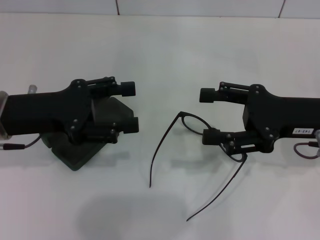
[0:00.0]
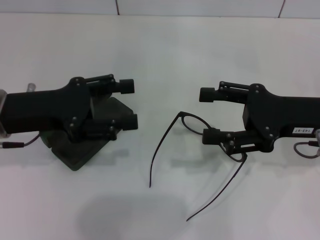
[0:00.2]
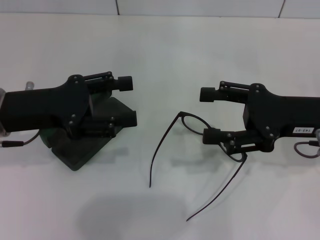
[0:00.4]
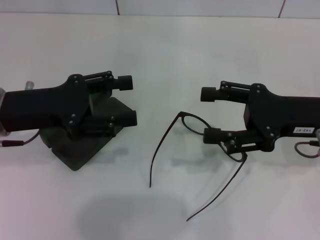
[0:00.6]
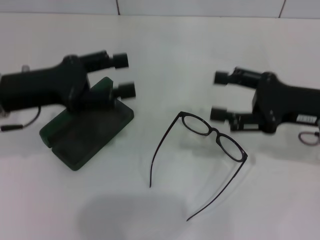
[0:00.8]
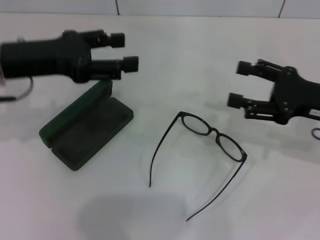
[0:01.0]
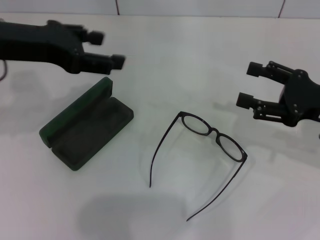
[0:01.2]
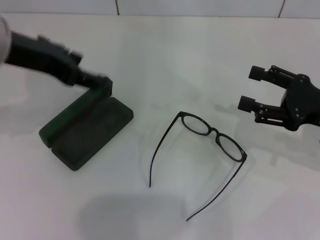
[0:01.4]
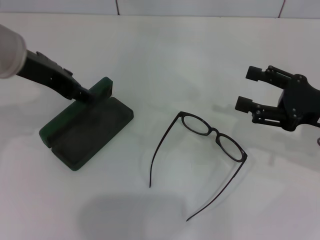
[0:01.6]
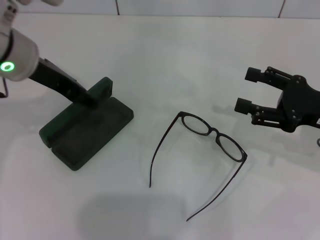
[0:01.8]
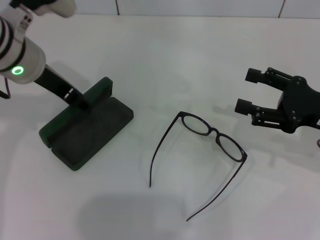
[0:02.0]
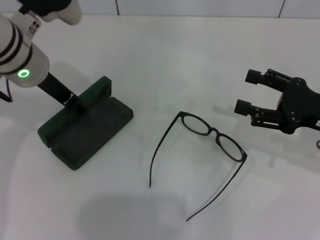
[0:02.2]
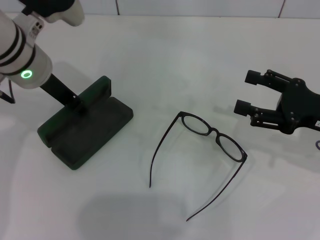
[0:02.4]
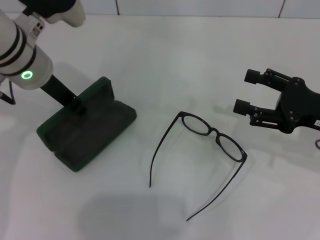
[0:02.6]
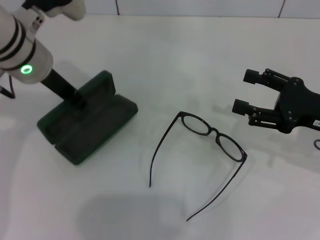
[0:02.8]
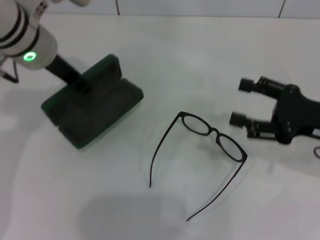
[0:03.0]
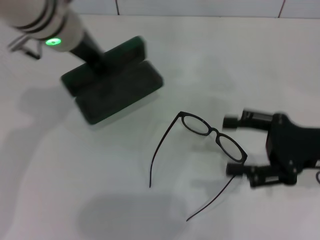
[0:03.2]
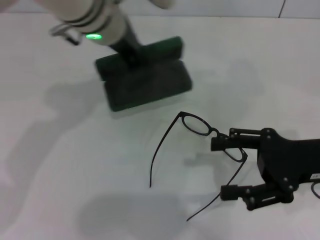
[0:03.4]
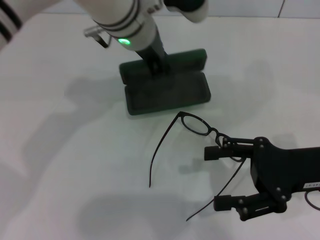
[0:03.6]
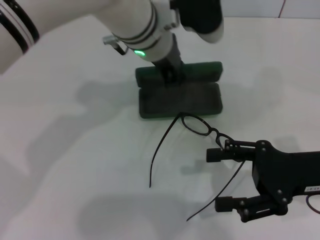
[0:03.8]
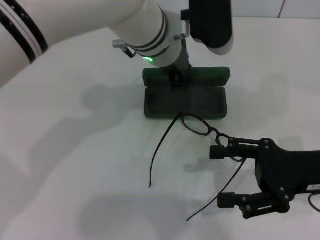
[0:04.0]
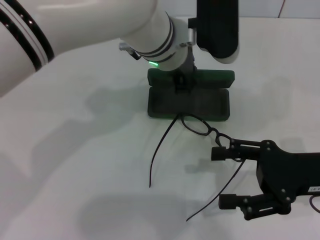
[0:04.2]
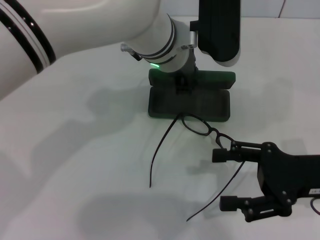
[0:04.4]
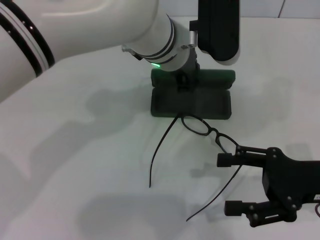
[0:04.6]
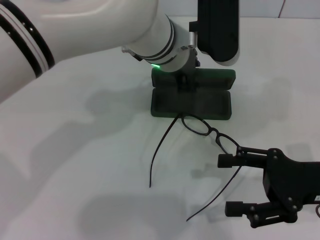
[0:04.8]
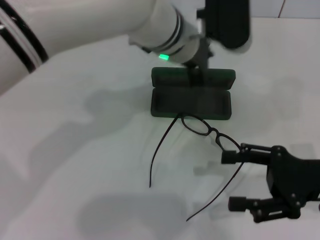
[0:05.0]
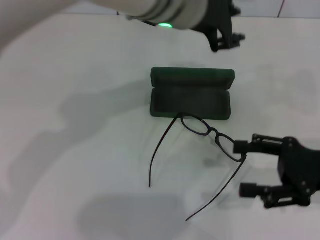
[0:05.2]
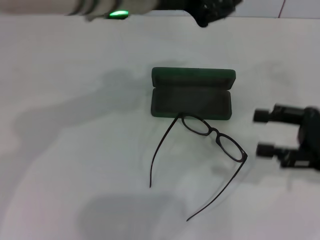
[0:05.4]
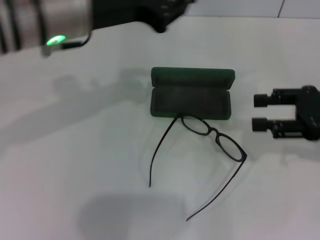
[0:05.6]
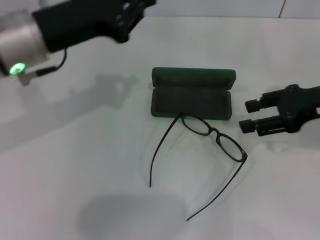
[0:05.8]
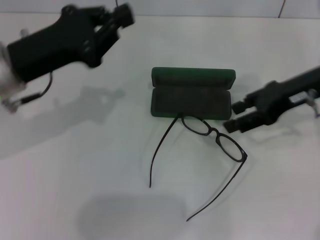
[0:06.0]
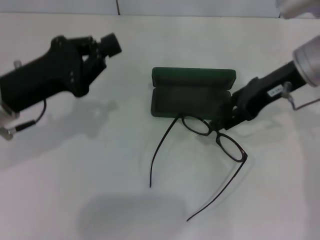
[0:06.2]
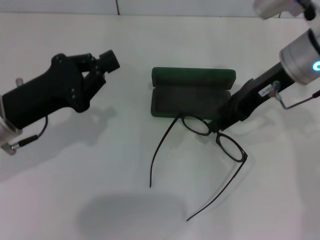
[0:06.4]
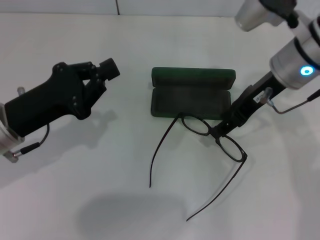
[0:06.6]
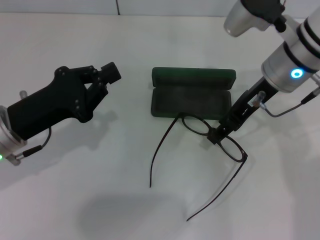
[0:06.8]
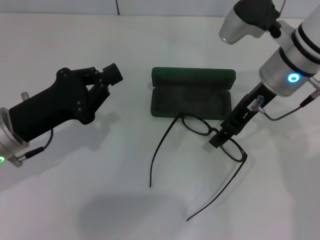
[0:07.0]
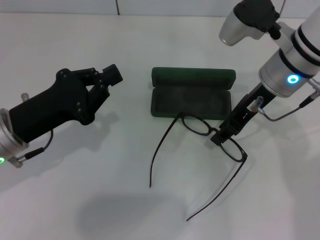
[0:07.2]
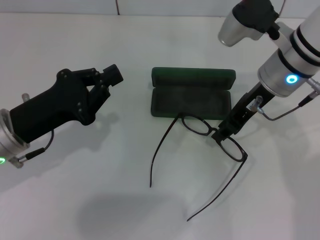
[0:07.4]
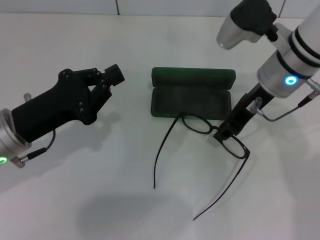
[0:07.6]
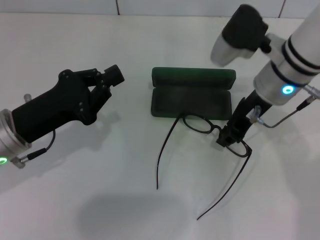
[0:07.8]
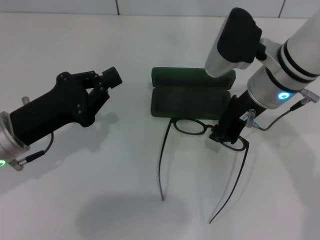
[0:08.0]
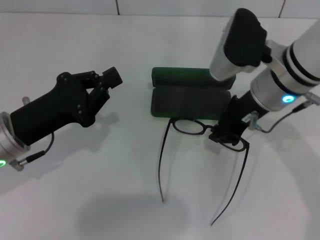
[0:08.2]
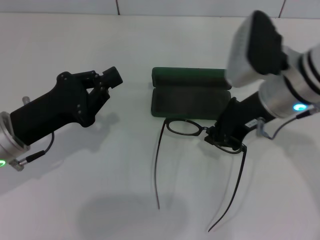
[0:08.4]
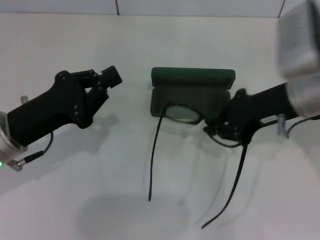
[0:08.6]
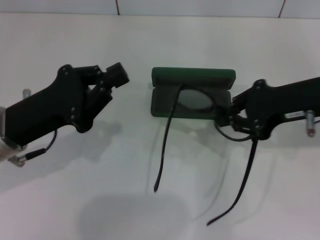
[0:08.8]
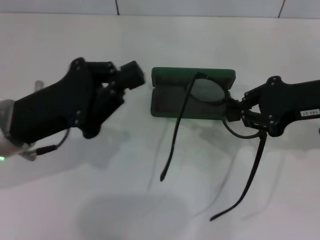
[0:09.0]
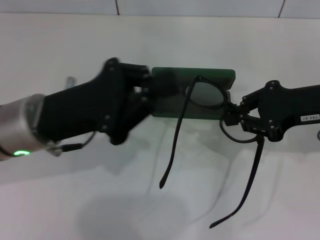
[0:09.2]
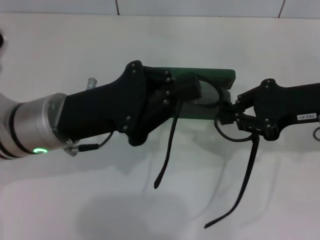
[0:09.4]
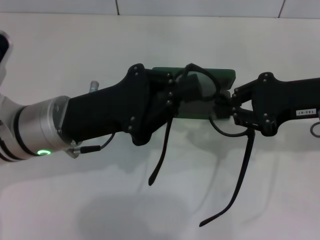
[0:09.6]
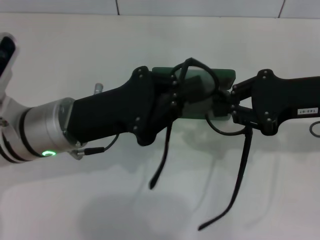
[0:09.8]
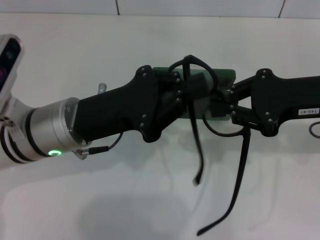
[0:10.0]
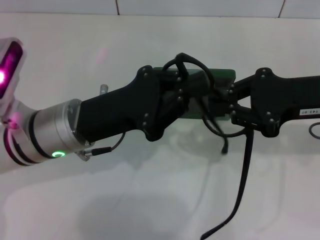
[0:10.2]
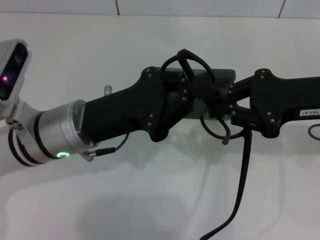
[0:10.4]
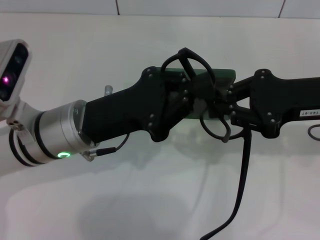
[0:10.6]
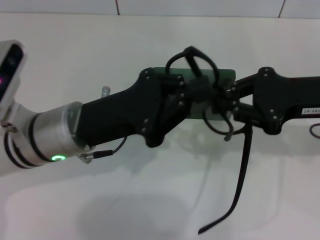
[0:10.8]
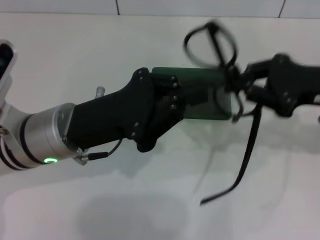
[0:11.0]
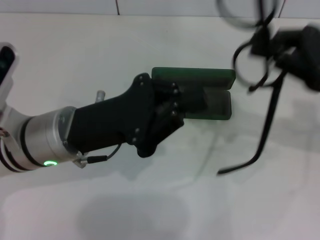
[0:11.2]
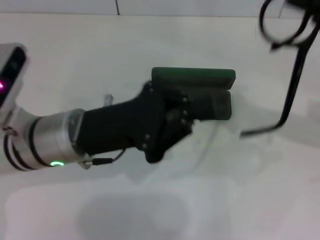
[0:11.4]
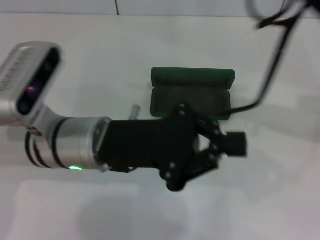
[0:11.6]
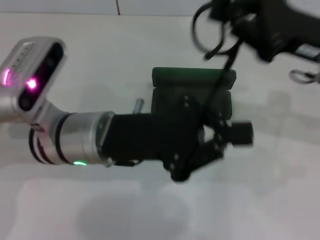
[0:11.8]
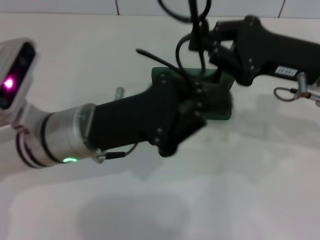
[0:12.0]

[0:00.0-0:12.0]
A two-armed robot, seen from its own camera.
Step, 0:00.0 to 0:02.6: Grab the glasses case with your left hand.
Step, 0:02.8 to 0:04.8: Place the glasses case in the center of the table with your left hand.
Step, 0:05.0 to 0:08.2: Grab the eyeglass frame with your right hand.
0:00.0 to 0:01.6: The right gripper shifts by some 5 cm, while the left gripper moves upward, some 10 cm.
0:01.6 to 0:03.0: The left gripper changes place by roughly 5 cm, and closes its fingers.
0:03.0 to 0:04.4: The left gripper travels to the right by some 15 cm.
0:04.4 to 0:06.0: The right gripper heads forward and upward, covering roughly 15 cm, while the left gripper goes roughly 25 cm to the left and backward.
0:06.0 to 0:07.6: The right gripper is displaced to the left by approximately 10 cm. The left gripper is displaced downward by about 5 cm.
0:07.6 to 0:09.0: The right gripper is displaced to the right and backward by about 10 cm, and closes its fingers.
0:09.0 to 0:10.4: The left gripper shifts some 5 cm to the right.
0:10.4 to 0:12.0: The right gripper travels to the right and back again, some 5 cm each way.

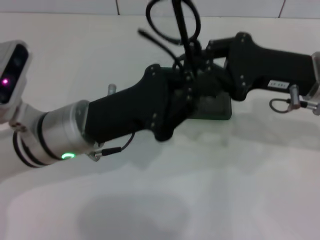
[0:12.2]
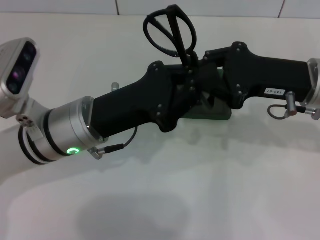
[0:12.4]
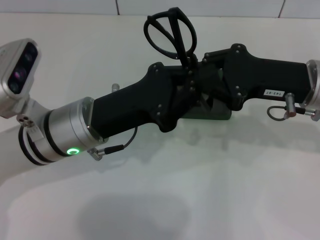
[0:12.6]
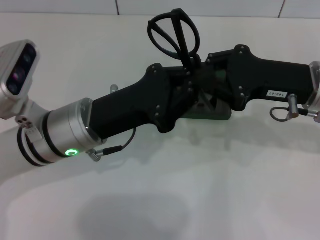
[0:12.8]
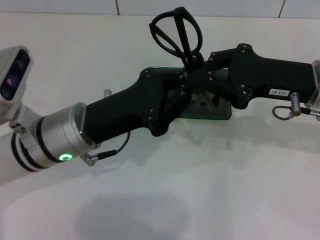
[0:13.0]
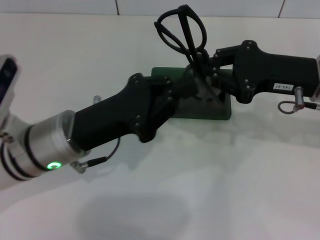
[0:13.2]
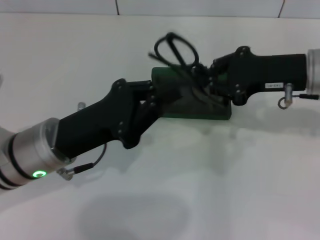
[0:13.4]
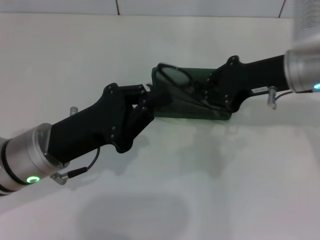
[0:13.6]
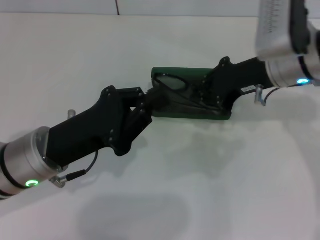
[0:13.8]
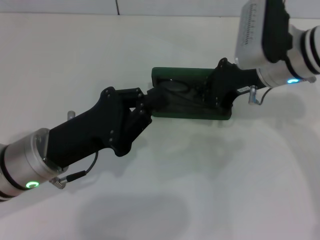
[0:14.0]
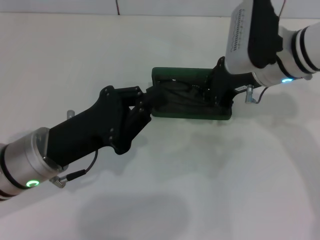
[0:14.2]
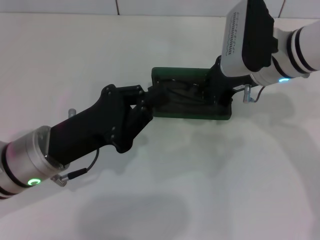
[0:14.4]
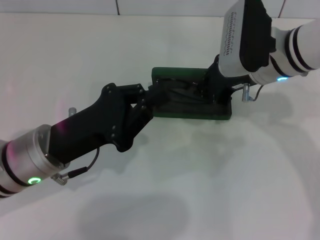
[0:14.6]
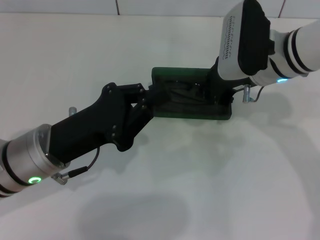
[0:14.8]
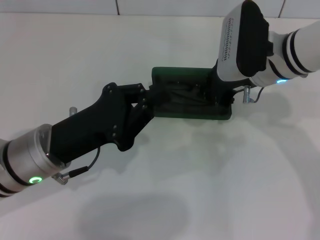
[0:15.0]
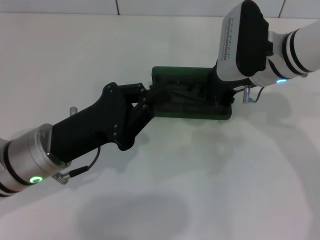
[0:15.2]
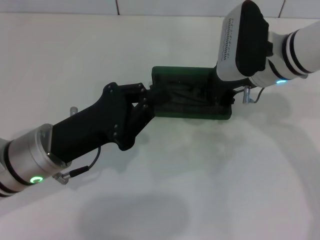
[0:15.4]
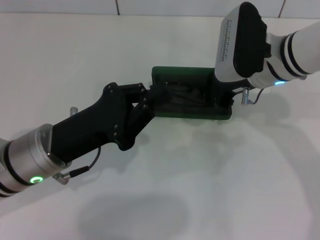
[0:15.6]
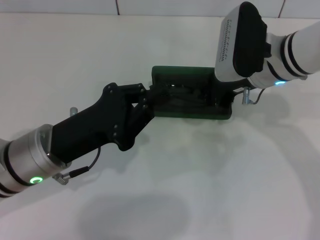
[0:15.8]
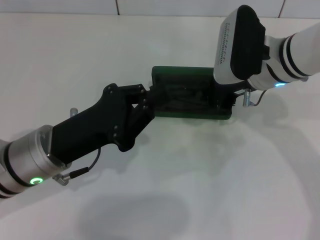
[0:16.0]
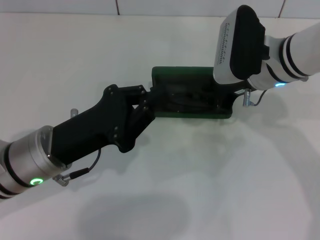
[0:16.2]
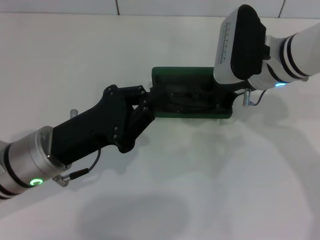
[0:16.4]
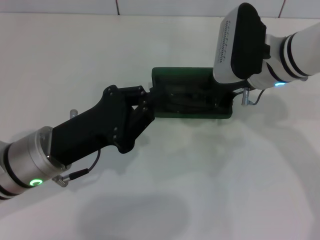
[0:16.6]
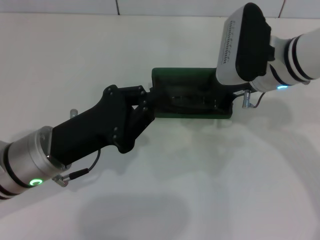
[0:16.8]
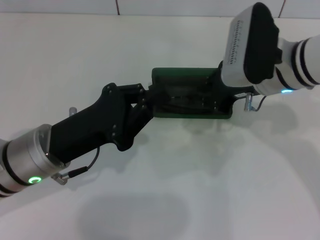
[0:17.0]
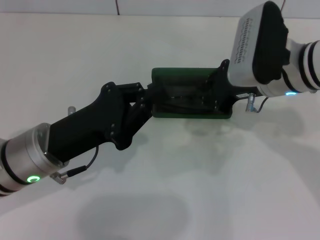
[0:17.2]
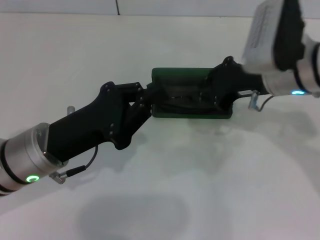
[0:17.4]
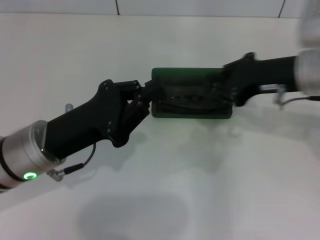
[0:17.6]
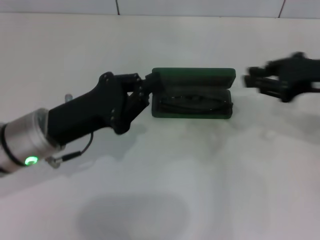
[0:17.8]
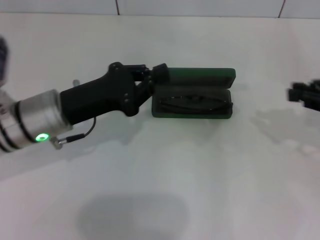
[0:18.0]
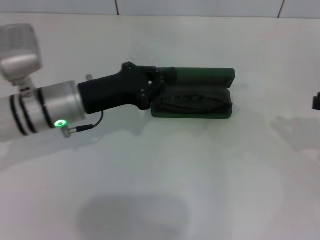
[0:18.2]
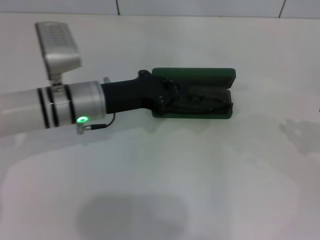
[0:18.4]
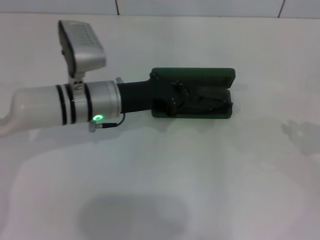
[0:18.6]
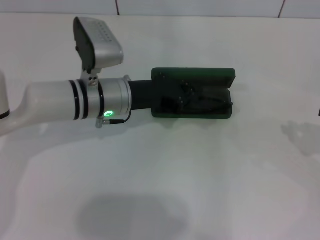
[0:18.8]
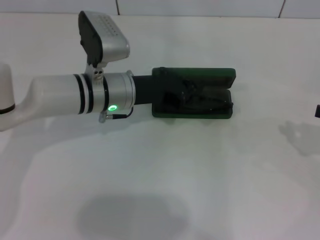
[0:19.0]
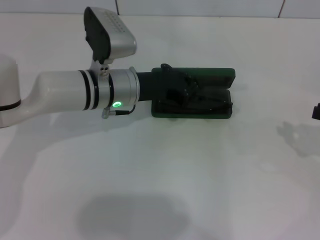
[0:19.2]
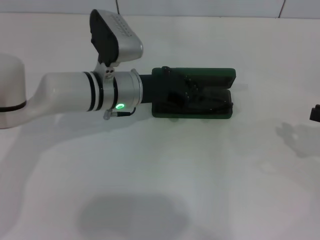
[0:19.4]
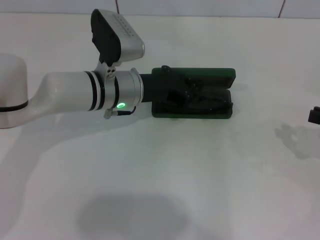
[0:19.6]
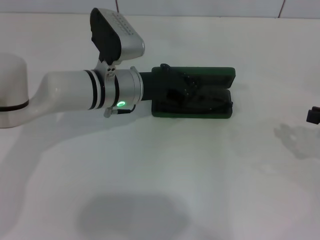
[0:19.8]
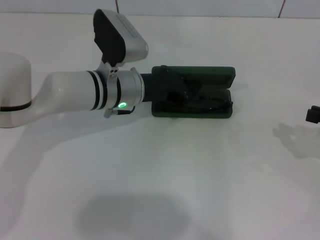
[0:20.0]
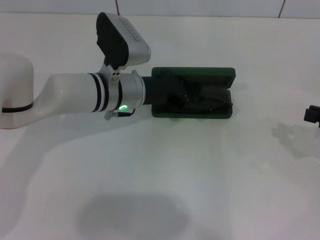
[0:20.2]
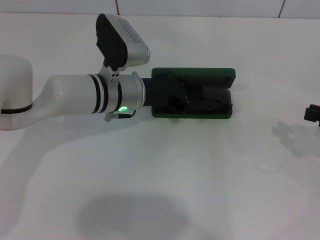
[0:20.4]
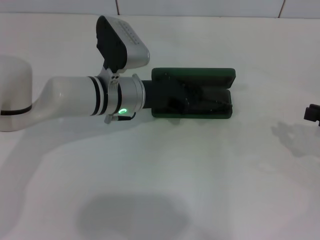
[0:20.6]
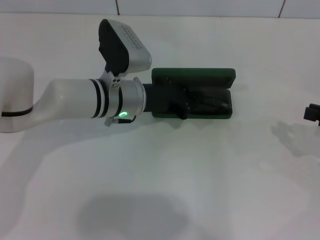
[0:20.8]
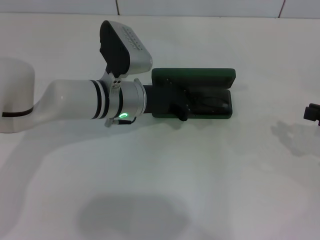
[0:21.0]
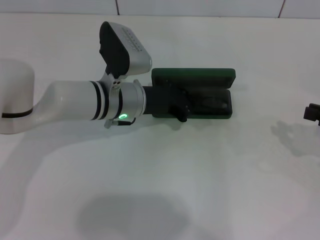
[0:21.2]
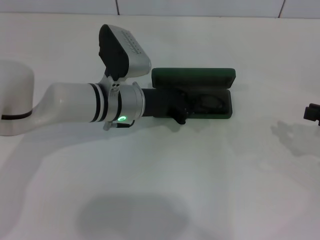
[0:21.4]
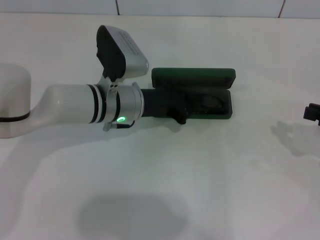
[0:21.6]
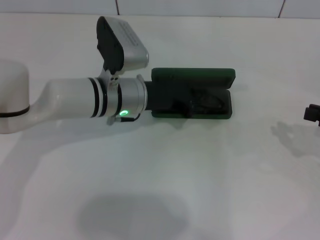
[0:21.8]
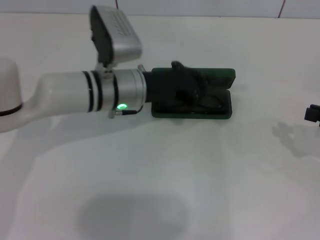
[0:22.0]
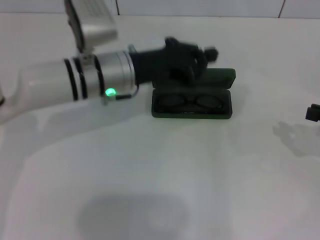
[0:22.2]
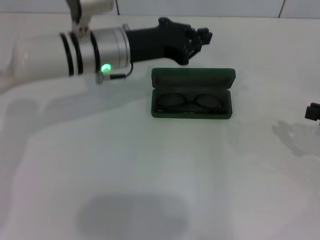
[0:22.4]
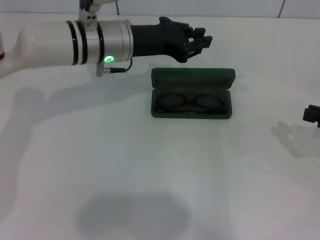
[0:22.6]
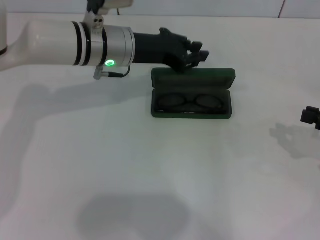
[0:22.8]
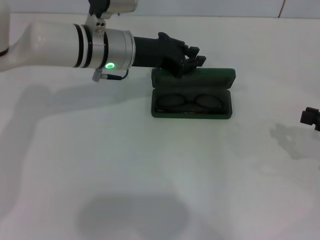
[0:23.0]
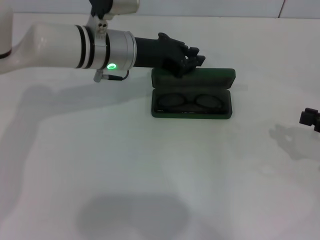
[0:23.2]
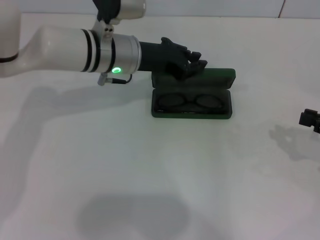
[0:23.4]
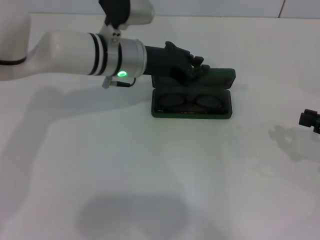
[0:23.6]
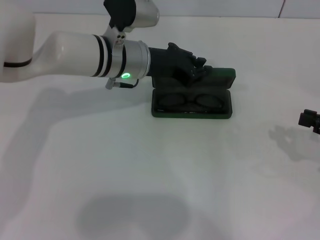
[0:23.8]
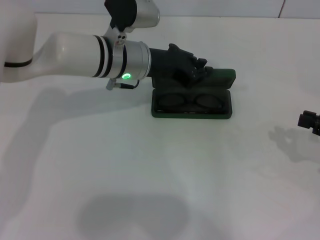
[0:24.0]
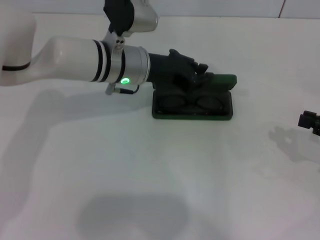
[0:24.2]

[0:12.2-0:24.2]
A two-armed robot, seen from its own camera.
Step, 0:13.0 to 0:16.6: Put the glasses into the case with your right hand.
0:12.2 to 0:13.8: The left gripper moves some 5 cm, while the right gripper ends up some 5 cm from where it was.
0:13.8 to 0:15.2: The grippers make only small movements.
0:15.2 to 0:16.6: Both grippers stay about where they are.
0:16.6 to 0:18.2: The left gripper travels forward by some 10 cm; the right gripper heads to the right and backward, covering some 25 cm.
0:18.2 to 0:19.8: The left gripper shifts about 10 cm to the right and forward.
0:19.8 to 0:21.2: The grippers move only a little.
0:21.2 to 0:22.6: The left gripper is displaced upward by roughly 5 cm.
0:22.6 to 0:24.2: The grippers move only a little.
